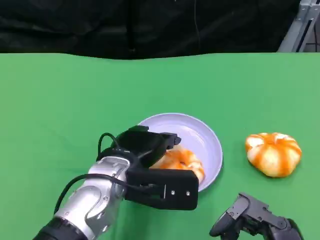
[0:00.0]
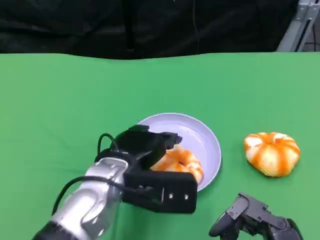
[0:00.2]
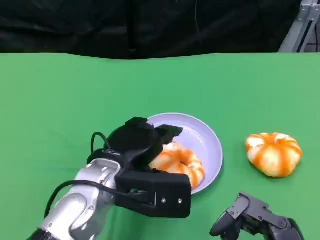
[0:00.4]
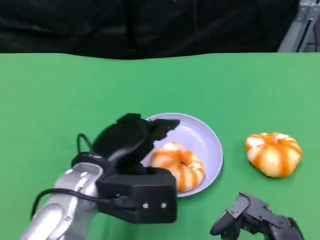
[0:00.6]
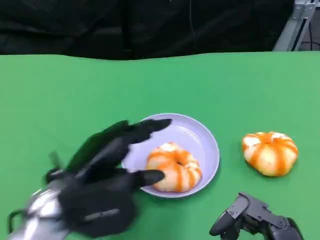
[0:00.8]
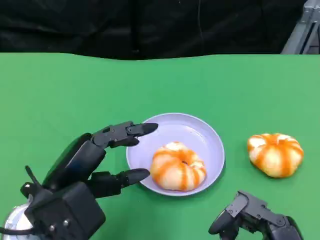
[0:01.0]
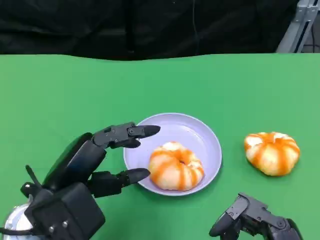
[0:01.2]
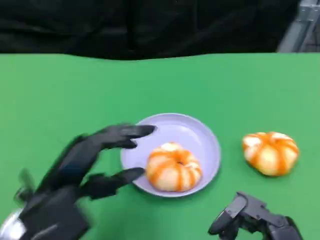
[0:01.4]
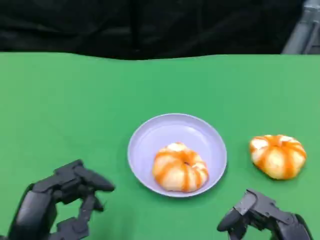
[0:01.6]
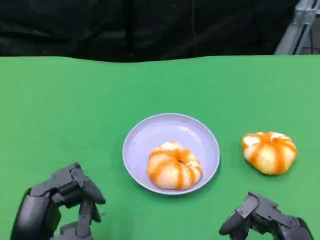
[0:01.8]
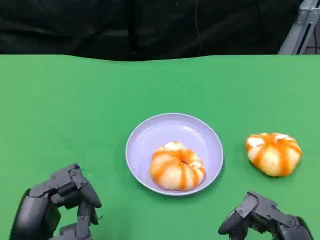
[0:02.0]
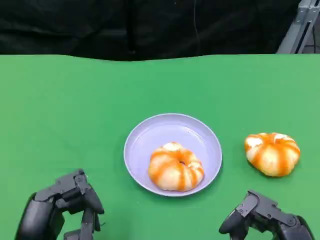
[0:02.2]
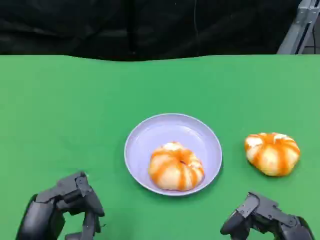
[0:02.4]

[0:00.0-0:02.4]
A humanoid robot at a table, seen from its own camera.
Task of the whole recording: Grasp the bread from the table and place it into the plate.
0:00.0 to 0:01.2: The left hand heads to the left and backward, covering roughly 10 cm.
0:01.2 to 0:02.4: The left hand heads backward and downward, covering some 10 cm.

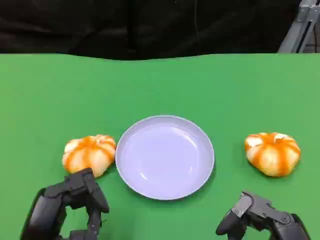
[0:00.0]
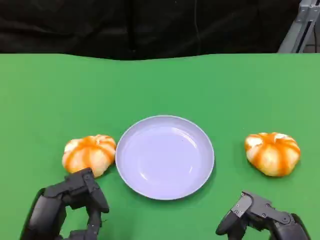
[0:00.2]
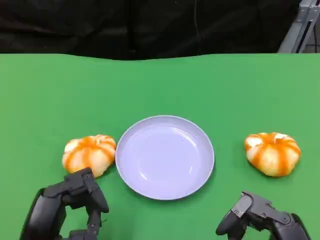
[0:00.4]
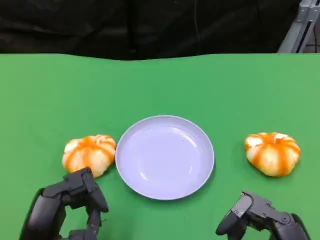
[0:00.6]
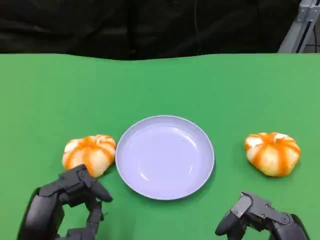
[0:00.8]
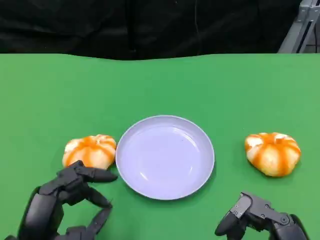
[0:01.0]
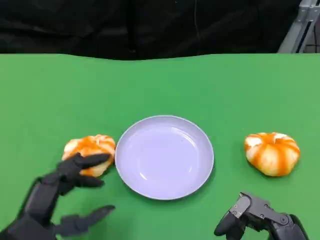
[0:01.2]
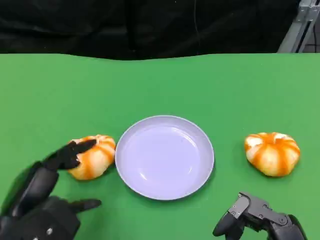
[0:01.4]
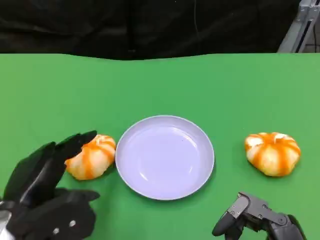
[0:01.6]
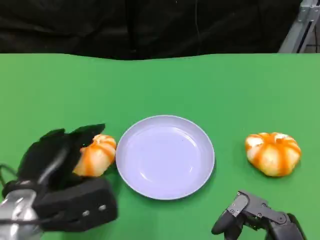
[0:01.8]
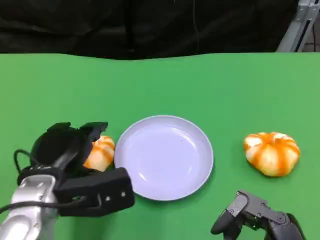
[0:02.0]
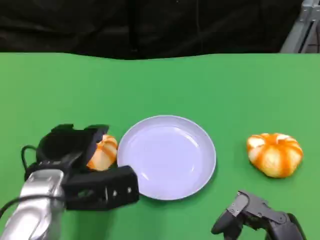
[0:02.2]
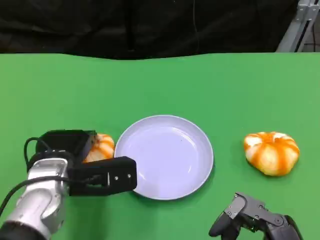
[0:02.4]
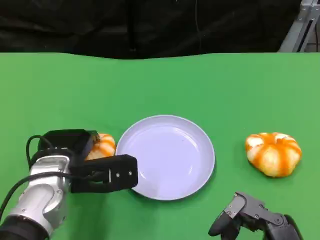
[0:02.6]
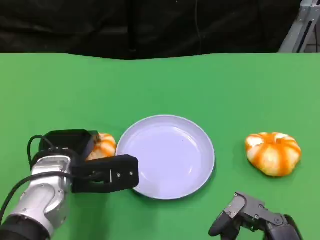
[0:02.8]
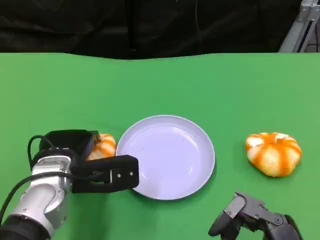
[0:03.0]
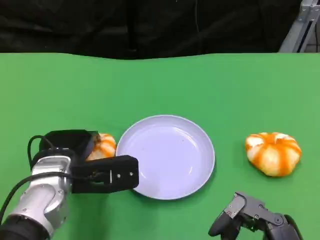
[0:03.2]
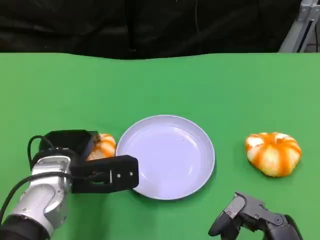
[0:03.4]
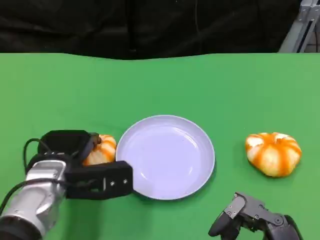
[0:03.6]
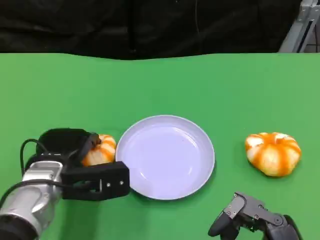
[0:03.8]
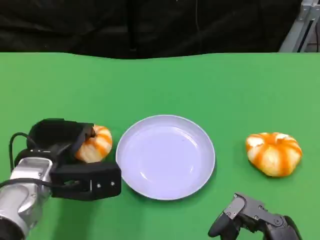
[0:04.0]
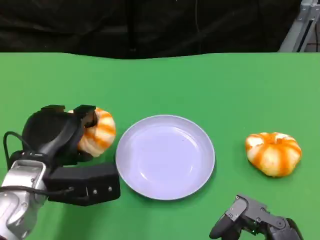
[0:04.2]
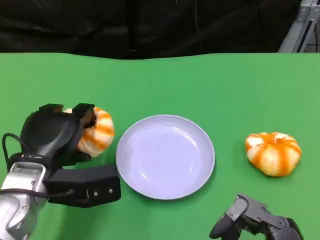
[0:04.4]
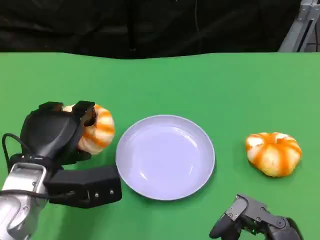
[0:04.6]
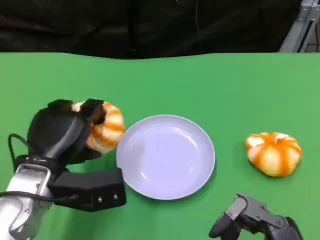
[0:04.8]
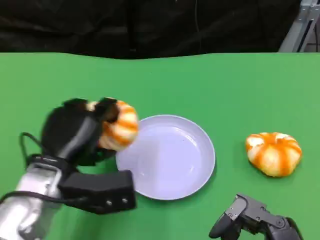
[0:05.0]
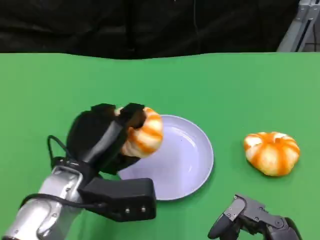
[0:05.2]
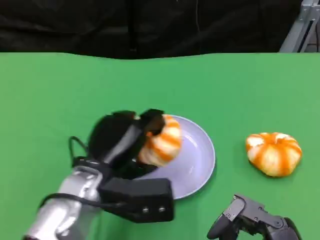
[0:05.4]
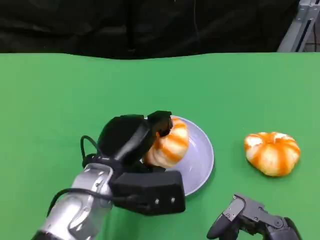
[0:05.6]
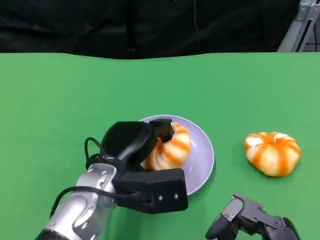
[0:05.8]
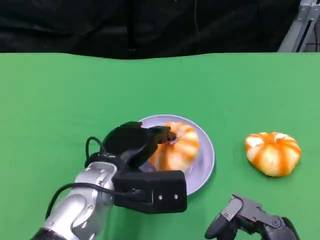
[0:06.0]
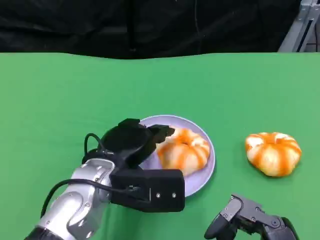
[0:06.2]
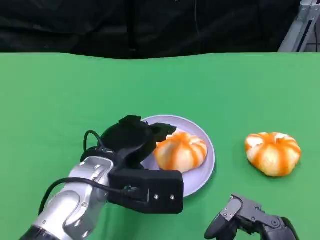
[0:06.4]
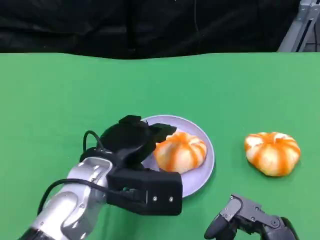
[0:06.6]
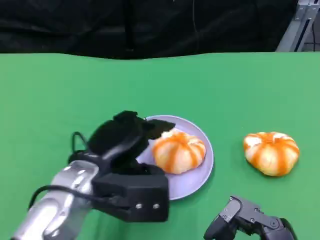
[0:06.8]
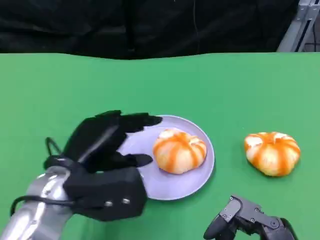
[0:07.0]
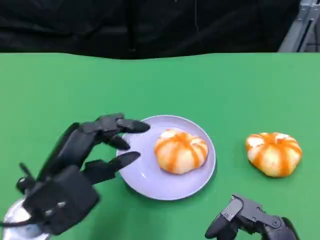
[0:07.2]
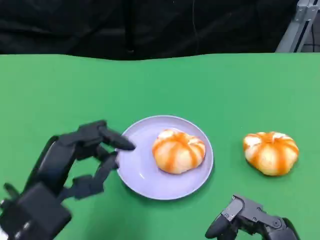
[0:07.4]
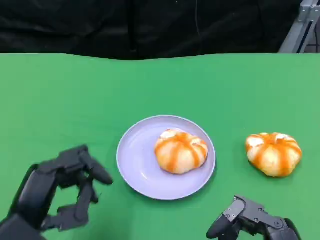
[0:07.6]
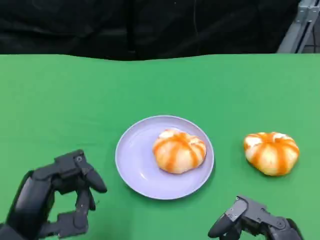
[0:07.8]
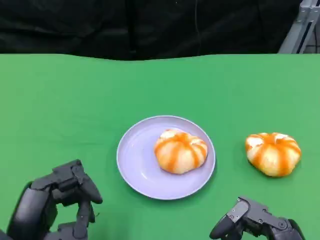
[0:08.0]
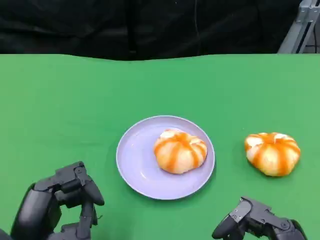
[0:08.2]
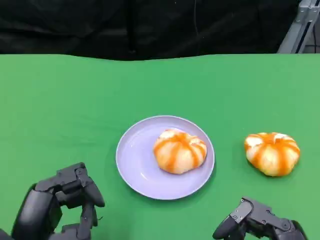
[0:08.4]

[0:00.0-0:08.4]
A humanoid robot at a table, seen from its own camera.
Task of the whole recording: Grasp the bread from the table and place it into the plate.
0:00.0 to 0:01.4: The left hand moves some 5 cm.
0:01.4 to 0:02.8: The left hand moves forward and to the right, roughly 10 cm.
0:04.2 to 0:05.6: The left hand moves to the right, roughly 10 cm.
0:05.6 to 0:07.0: The left hand heads to the left, covering about 5 cm.
0:07.0 to 0:08.4: The left hand travels backward by some 10 cm.

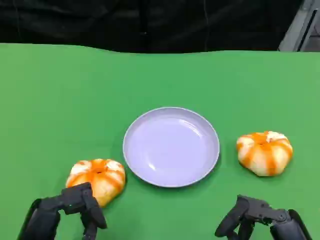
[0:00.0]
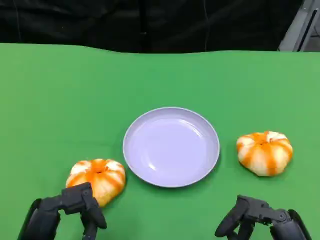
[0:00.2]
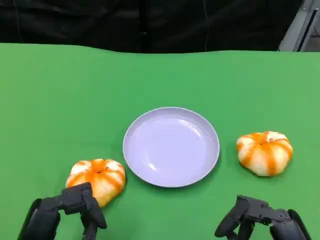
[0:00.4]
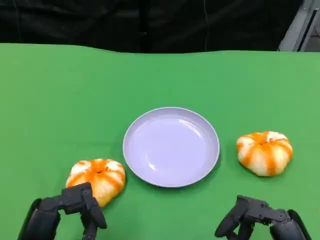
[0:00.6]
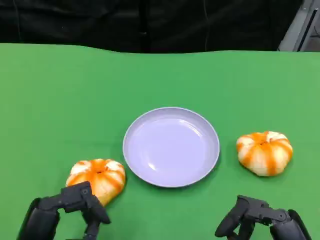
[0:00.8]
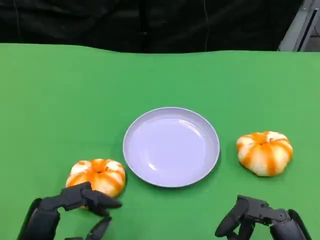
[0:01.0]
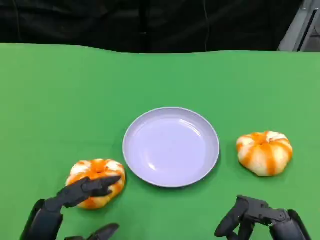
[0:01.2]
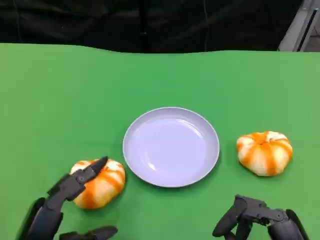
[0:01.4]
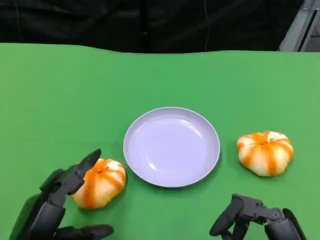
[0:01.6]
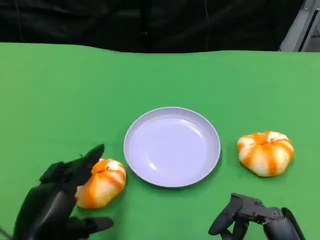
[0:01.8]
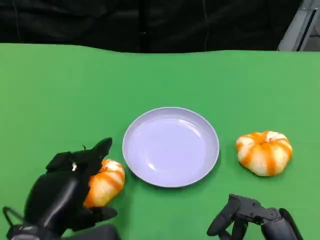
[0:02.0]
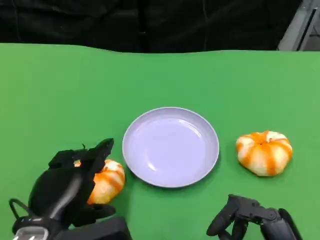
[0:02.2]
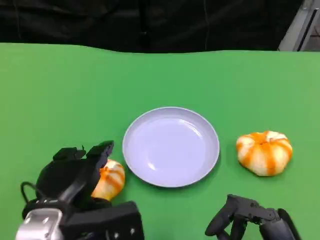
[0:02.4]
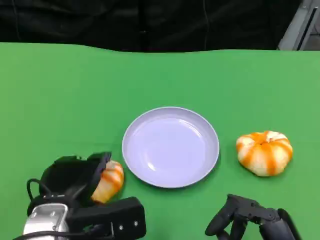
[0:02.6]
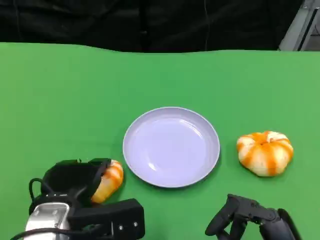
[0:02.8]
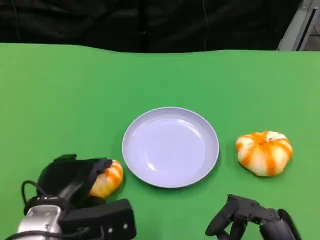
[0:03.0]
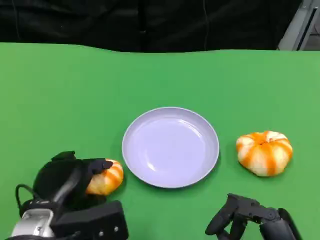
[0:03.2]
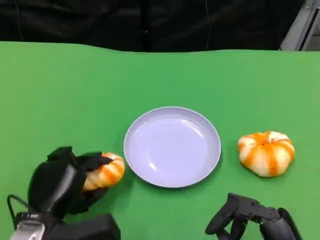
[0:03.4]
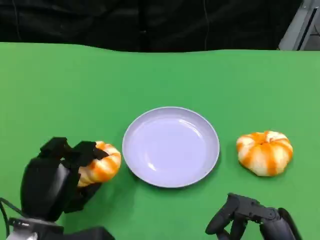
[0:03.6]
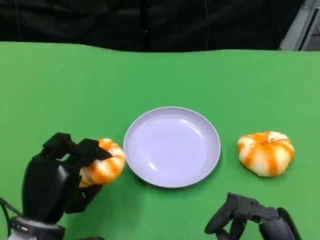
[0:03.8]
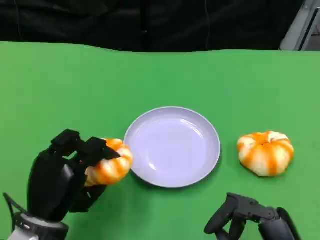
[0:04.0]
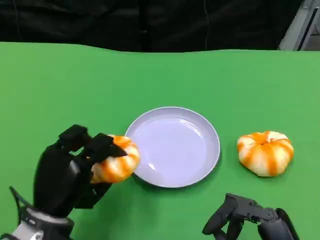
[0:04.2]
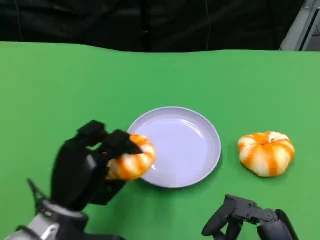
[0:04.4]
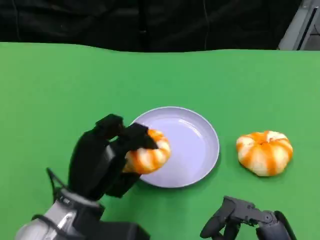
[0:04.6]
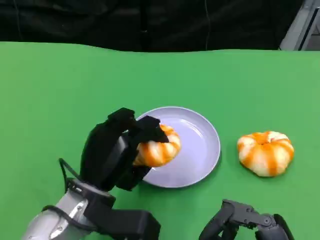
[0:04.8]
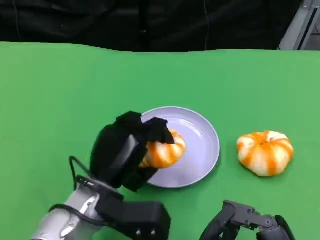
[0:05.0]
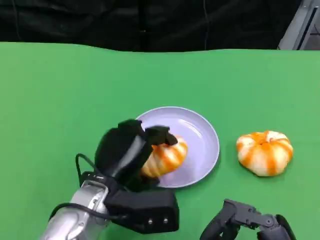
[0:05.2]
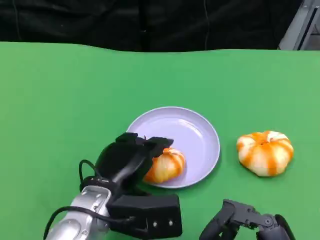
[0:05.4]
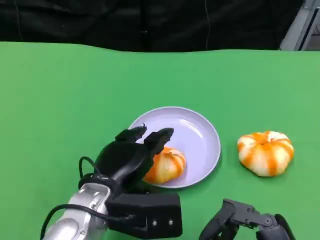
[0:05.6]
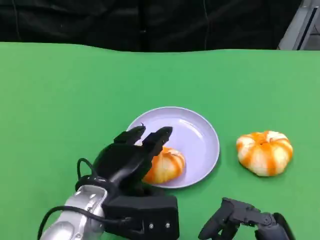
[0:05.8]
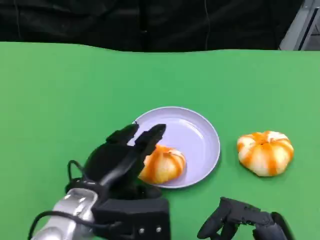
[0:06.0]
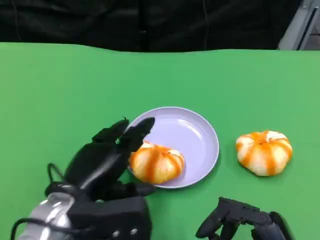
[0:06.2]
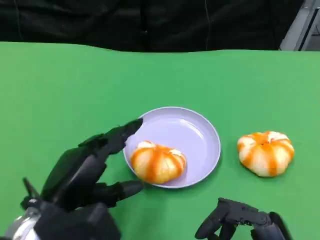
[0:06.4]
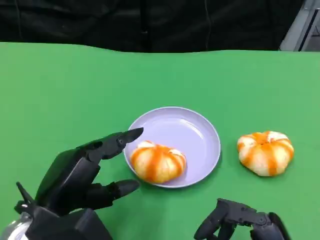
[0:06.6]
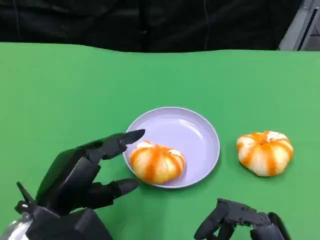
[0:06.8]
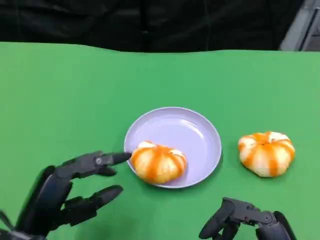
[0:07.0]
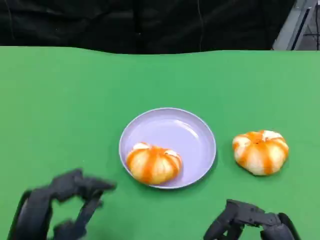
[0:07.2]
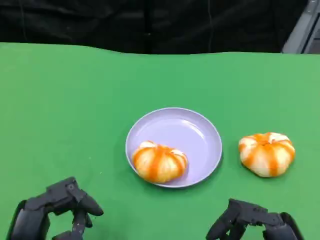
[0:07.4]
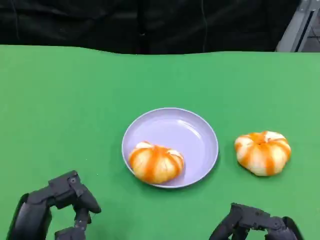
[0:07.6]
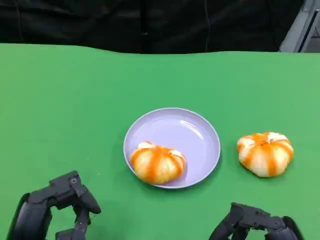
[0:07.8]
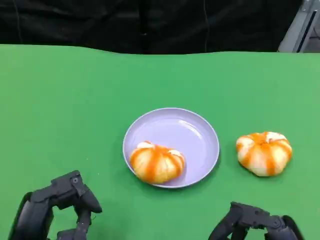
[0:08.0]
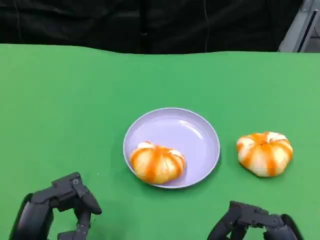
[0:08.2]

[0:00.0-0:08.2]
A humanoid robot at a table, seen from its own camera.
Task of the whole recording: Grasp the bread from the table and place it into the plate.
0:01.6 to 0:03.2: The left hand heads forward, covering some 5 cm.
0:03.2 to 0:05.0: The left hand is displaced to the right by roughly 10 cm.
0:05.0 to 0:06.6: The left hand shifts about 10 cm to the left and backward.
0:06.6 to 0:08.2: The left hand heads backward, covering approximately 5 cm.
